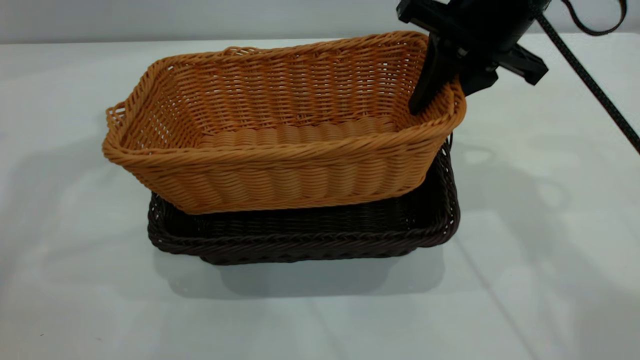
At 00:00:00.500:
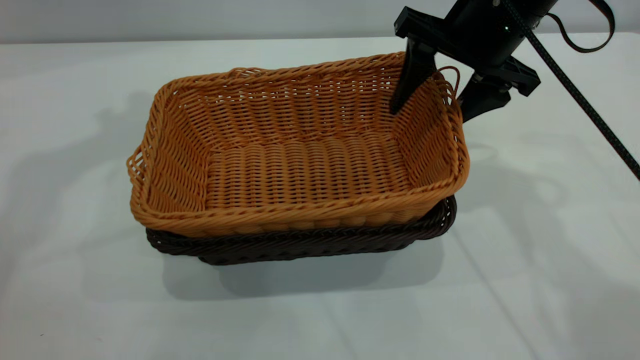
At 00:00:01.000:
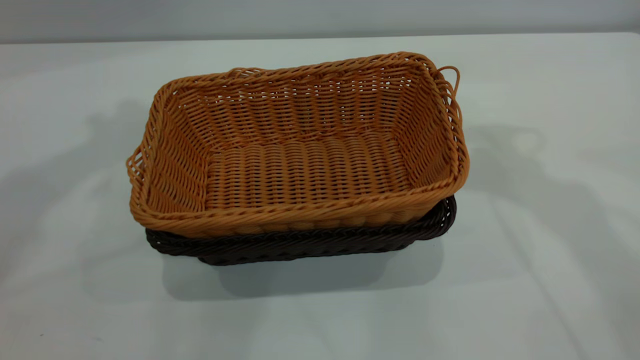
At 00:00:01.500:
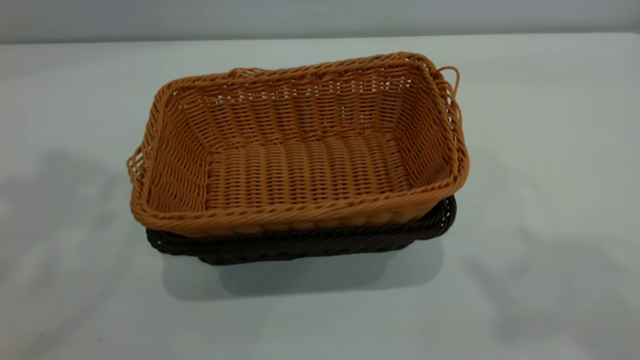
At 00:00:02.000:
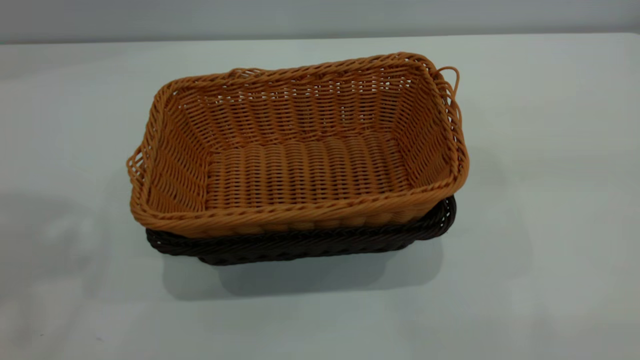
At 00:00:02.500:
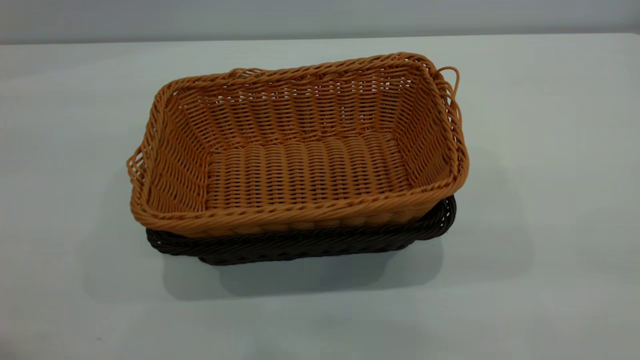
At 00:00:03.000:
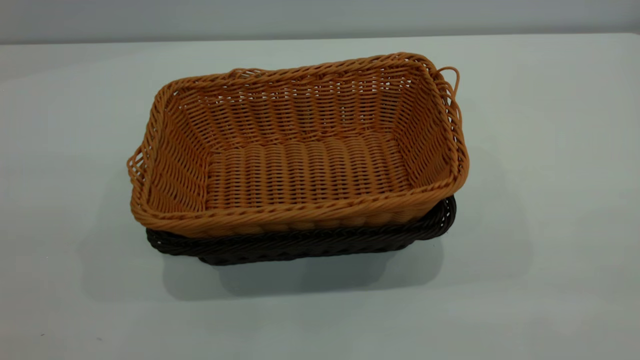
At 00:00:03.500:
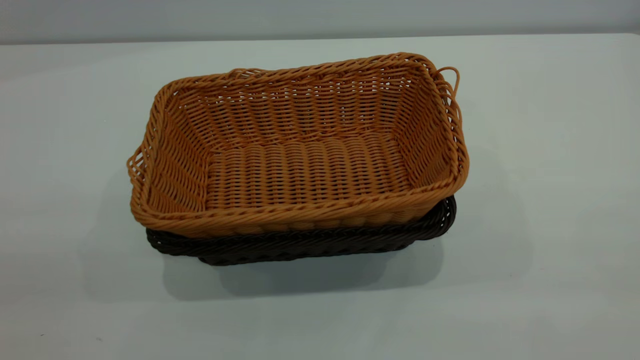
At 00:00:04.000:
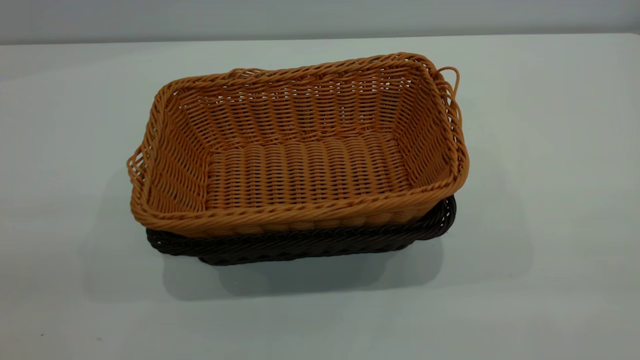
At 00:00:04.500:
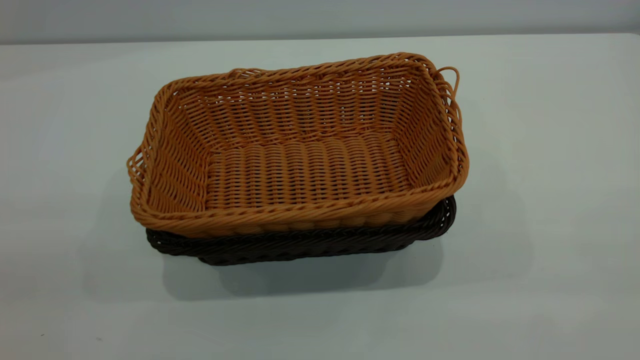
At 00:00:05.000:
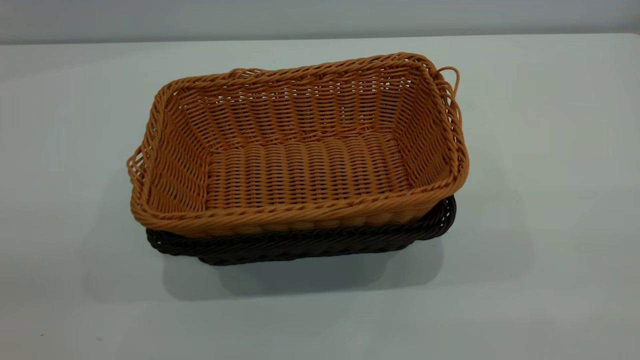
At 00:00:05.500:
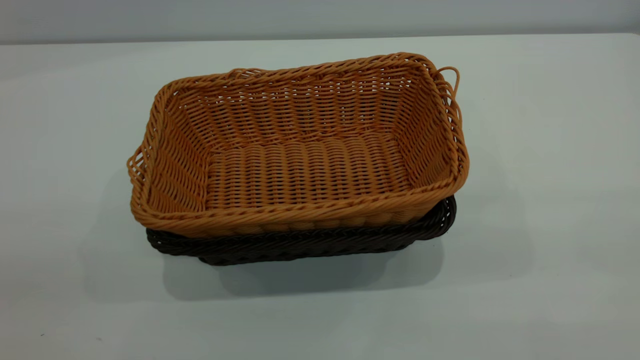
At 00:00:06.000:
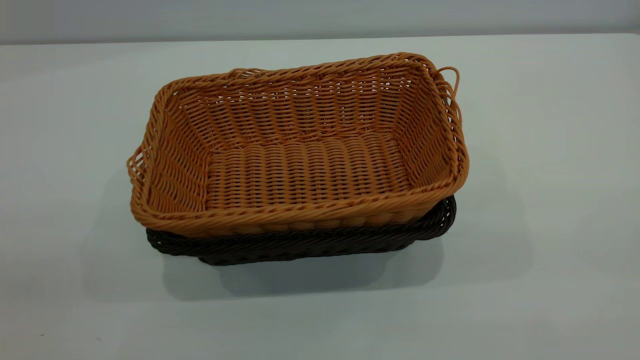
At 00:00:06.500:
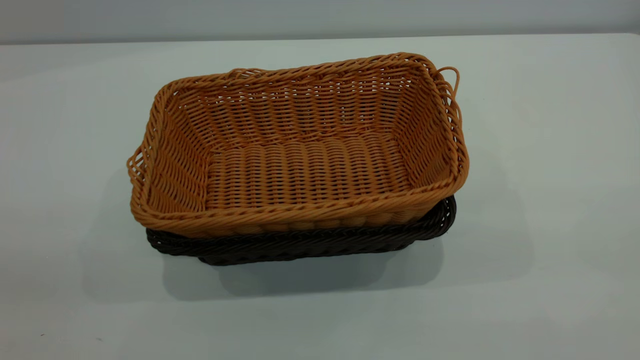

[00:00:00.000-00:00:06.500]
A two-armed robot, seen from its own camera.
Task of the whole recording: the left gripper grasp the black basket and place it in the center of the table, the right gripper grasp the brown basket and place it inside the black one.
00:00:00.000 to 00:00:02.000: The left gripper moves backward and upward, approximately 20 cm. The right gripper travels backward and upward by some 40 cm, and opens its fingers.
